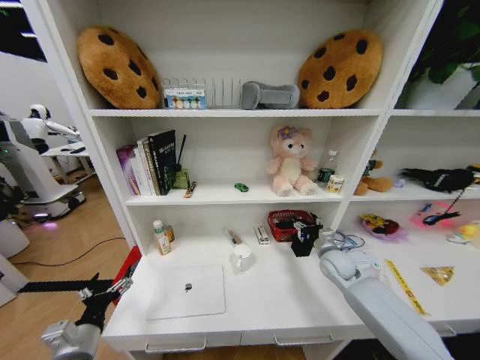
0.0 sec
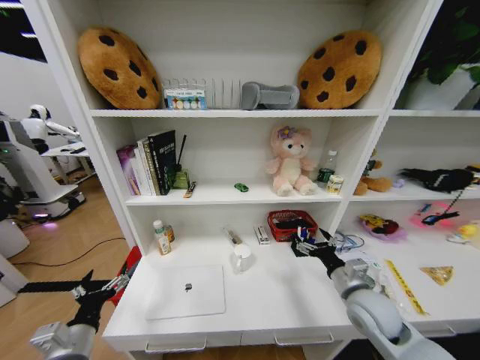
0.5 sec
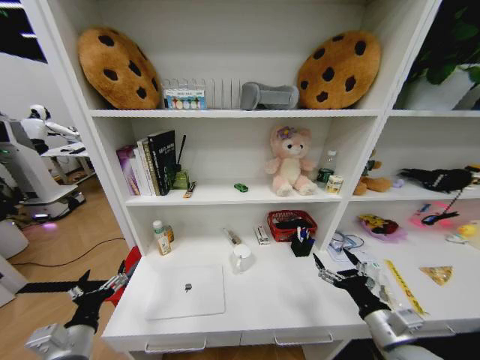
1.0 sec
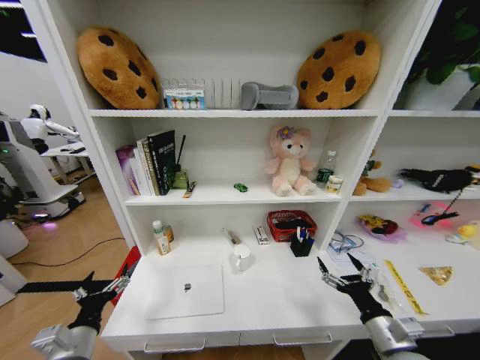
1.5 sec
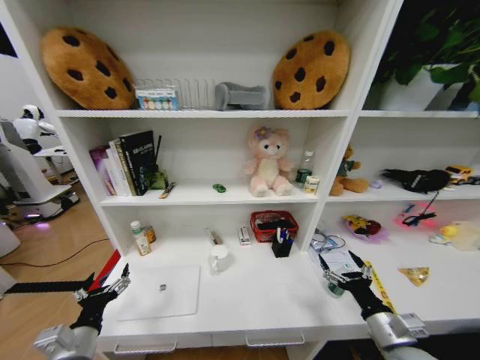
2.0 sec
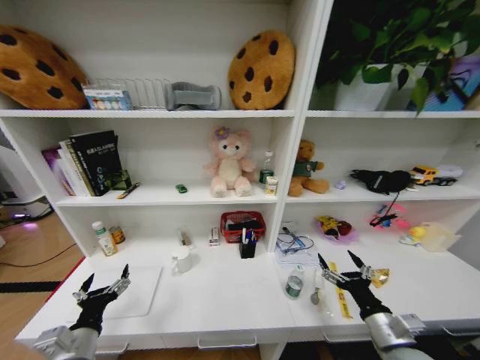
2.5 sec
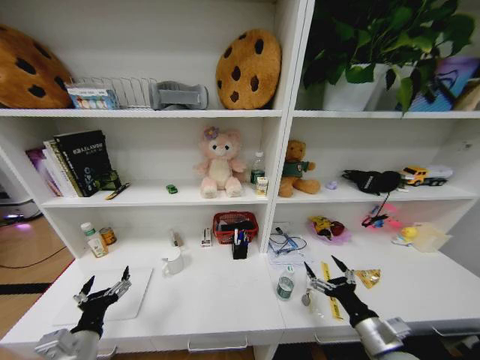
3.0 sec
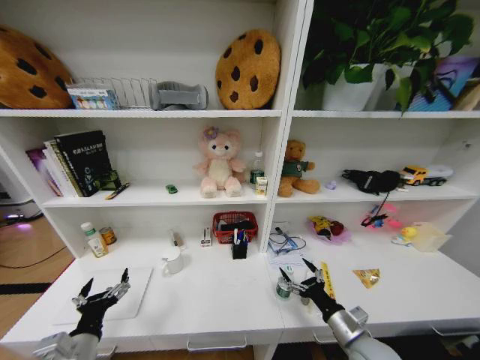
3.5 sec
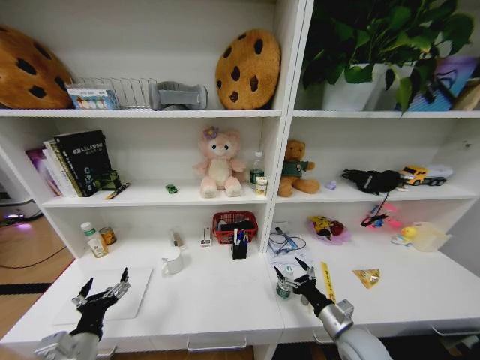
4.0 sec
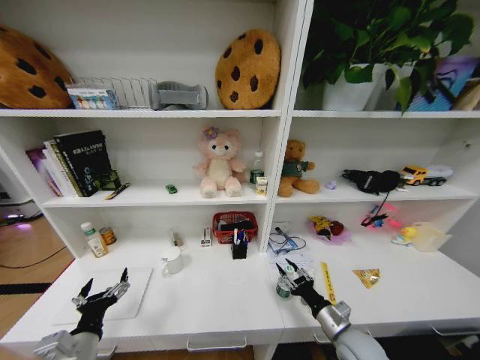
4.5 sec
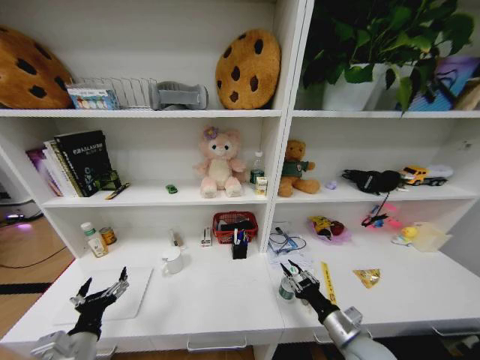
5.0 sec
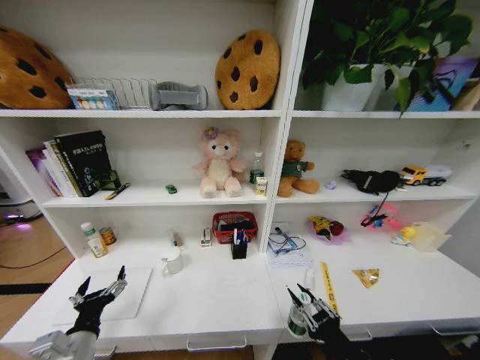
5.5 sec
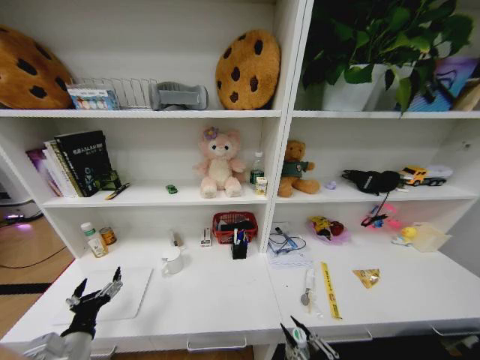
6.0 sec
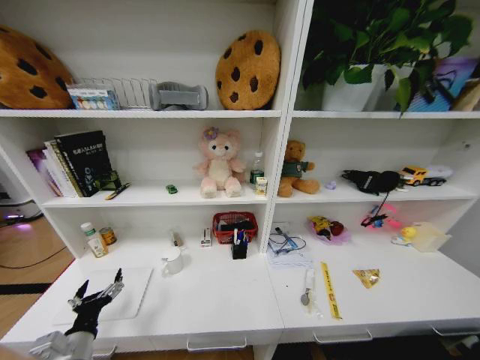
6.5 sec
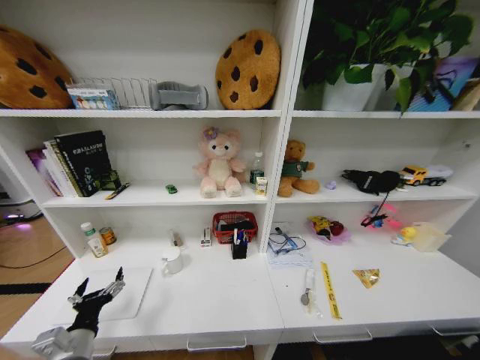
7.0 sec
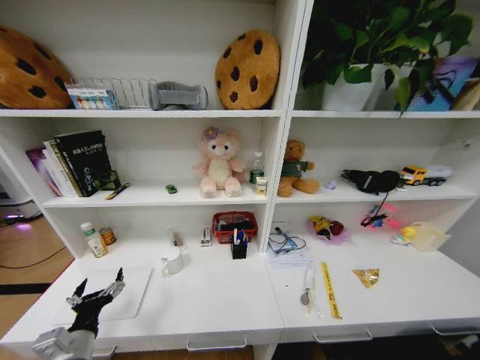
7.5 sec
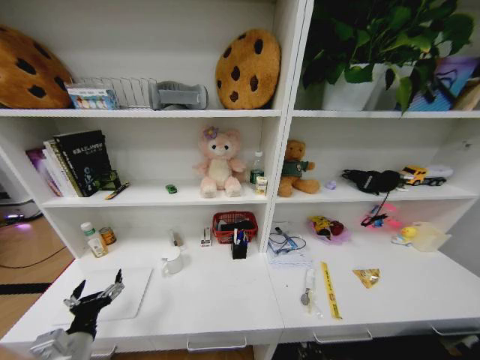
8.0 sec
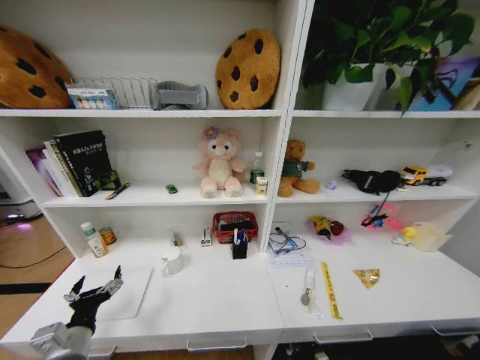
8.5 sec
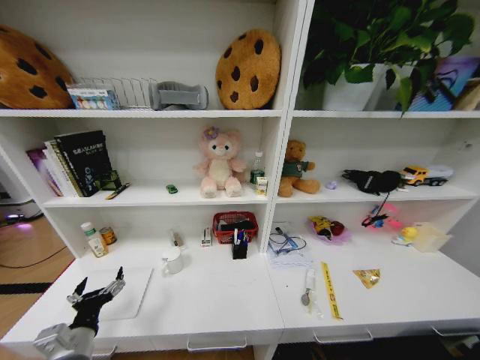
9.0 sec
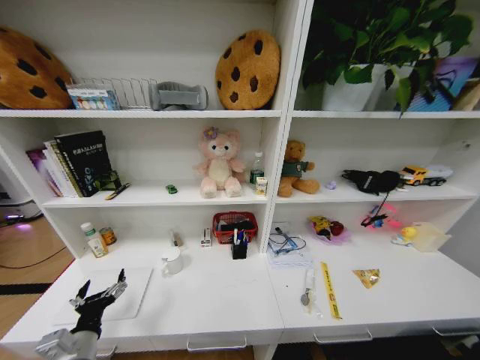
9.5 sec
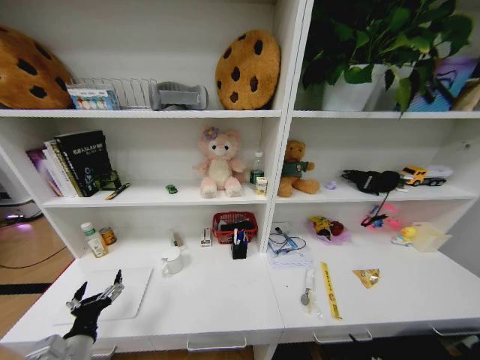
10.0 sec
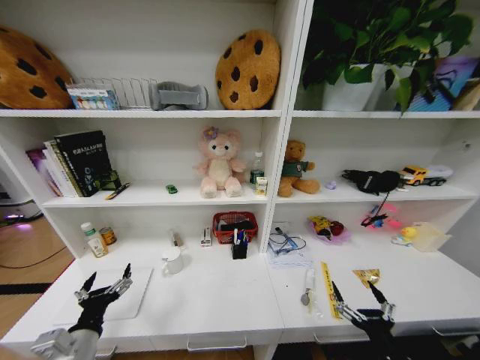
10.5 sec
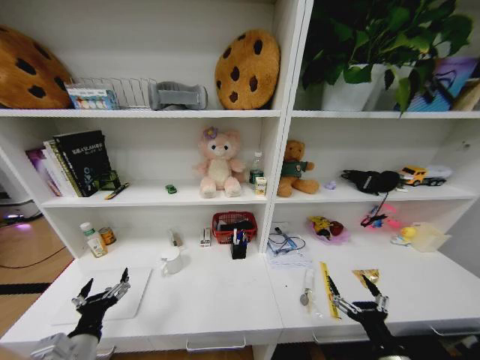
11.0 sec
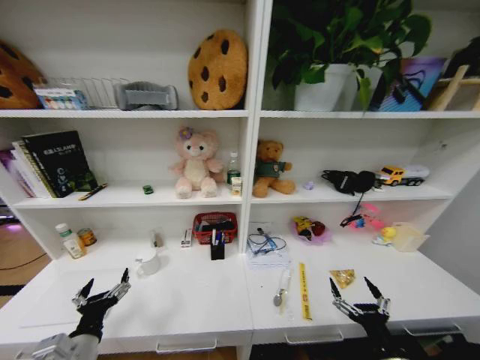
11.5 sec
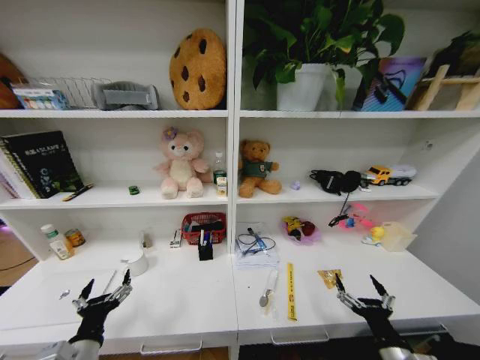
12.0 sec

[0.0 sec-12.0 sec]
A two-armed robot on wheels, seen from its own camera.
Task of the whole recording: Organize the objects on the table.
0.0 sec to 2.0 sec: The right gripper heads backward, covering approximately 25 cm.
2.0 sec to 4.0 sec: The right gripper moves downward and to the left, some 10 cm.
4.0 sec to 6.0 sec: The right gripper moves backward and upward, about 20 cm, and closes its fingers.
6.0 sec to 8.0 sec: The right gripper goes approximately 40 cm downward.
10.0 sec to 12.0 sec: The right gripper shifts about 15 cm forward.

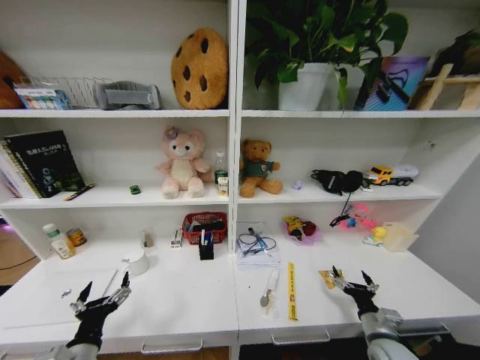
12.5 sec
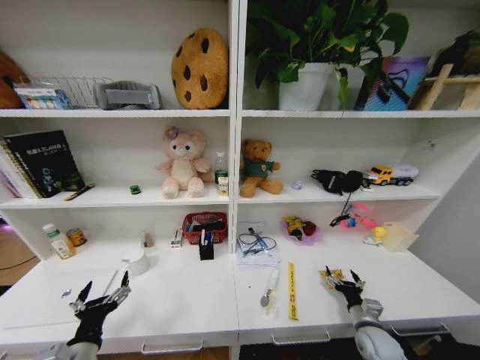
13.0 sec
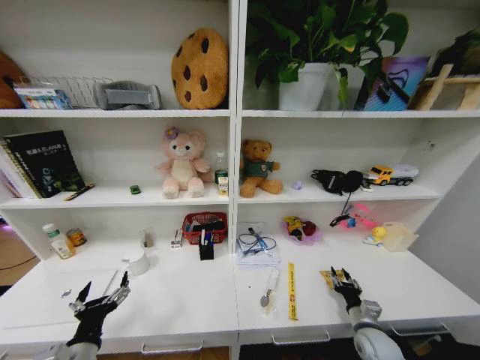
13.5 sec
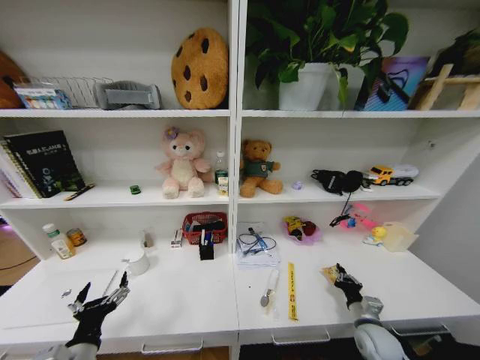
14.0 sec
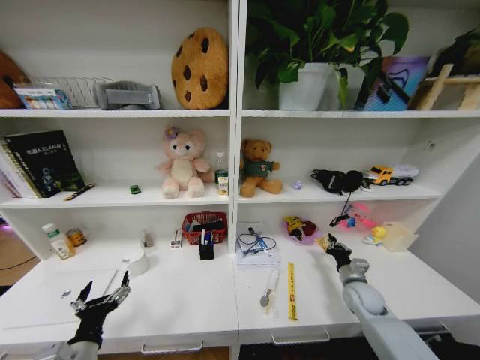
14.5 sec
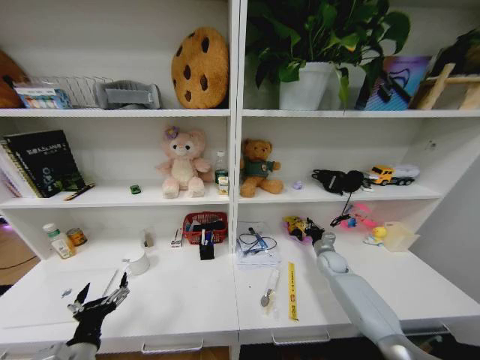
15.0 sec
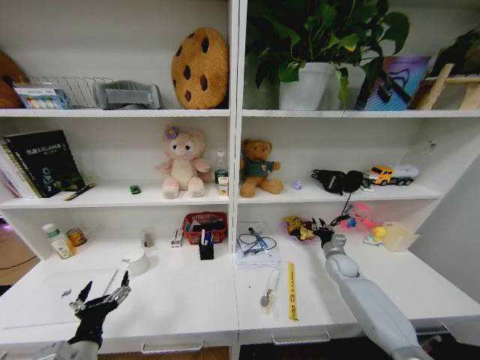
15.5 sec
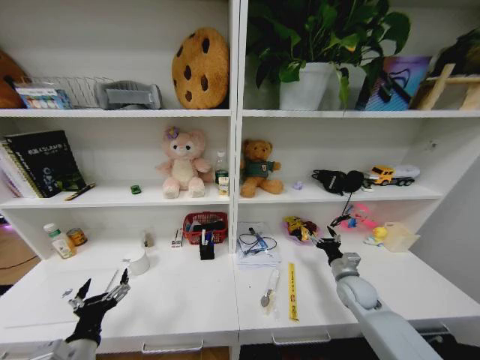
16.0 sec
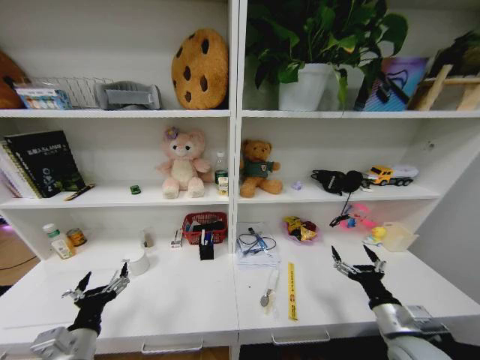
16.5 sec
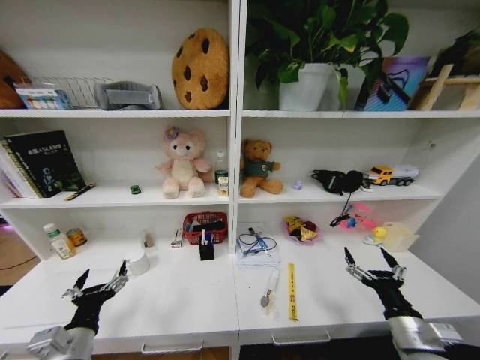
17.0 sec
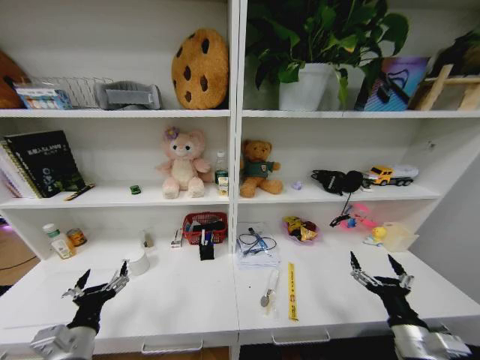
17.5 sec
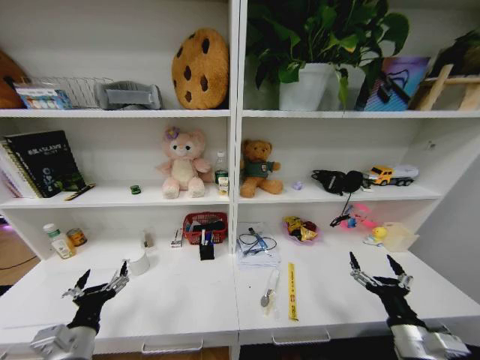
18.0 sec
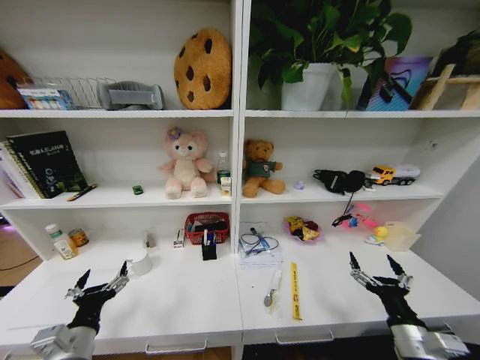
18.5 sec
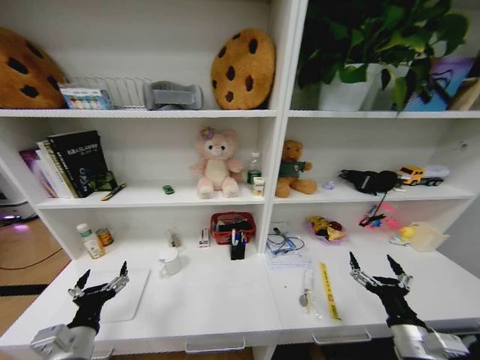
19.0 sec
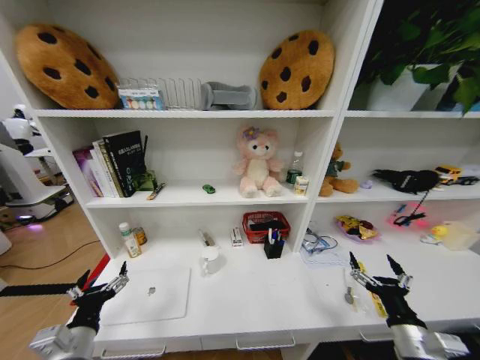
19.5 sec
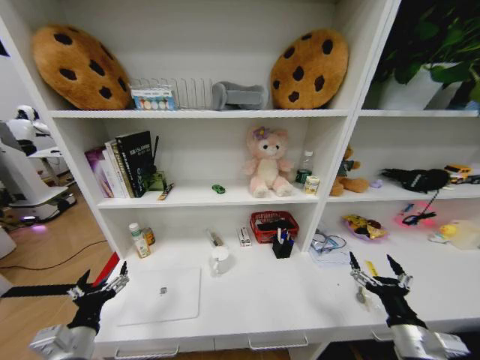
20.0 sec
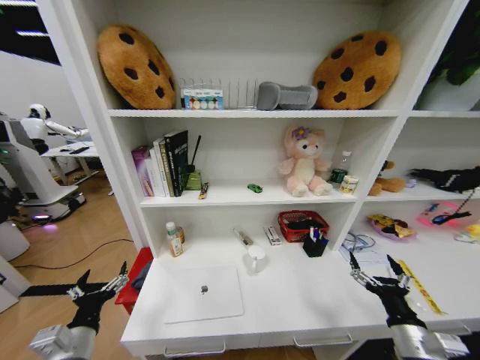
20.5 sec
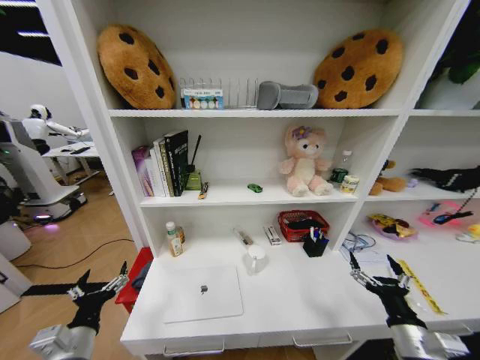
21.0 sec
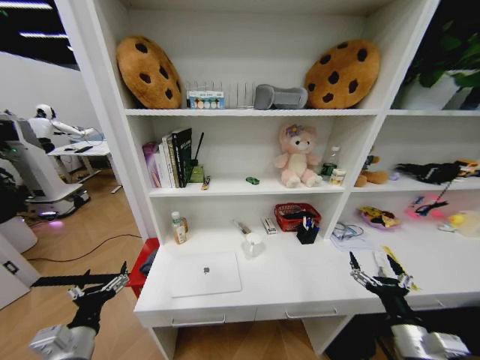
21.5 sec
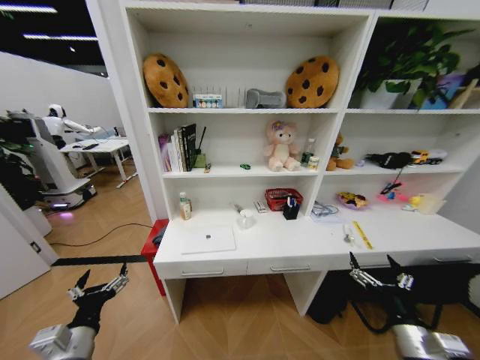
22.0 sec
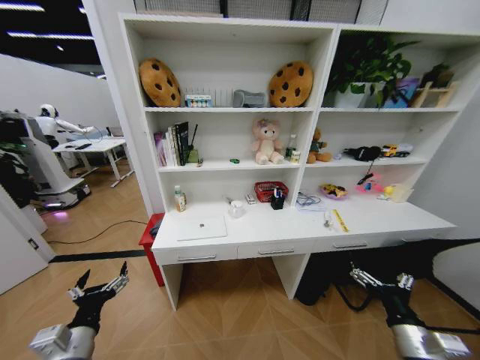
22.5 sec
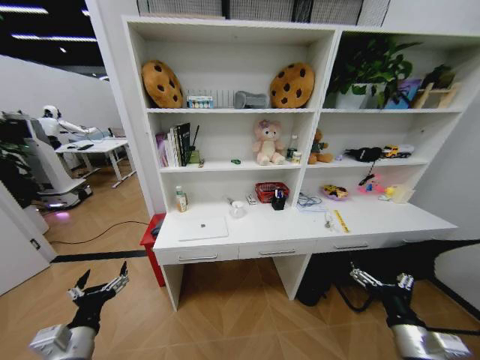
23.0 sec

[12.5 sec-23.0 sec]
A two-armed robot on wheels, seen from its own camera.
Task of the whole recording: Organize the objects on the table.
12.5 sec to 14.5 sec: The right gripper heads forward, covering about 15 cm, and closes up.
14.5 sec to 16.5 sec: The right gripper is displaced backward and upward by about 15 cm, and opens.
16.5 sec to 19.0 sec: The right gripper goes roughly 5 cm backward.

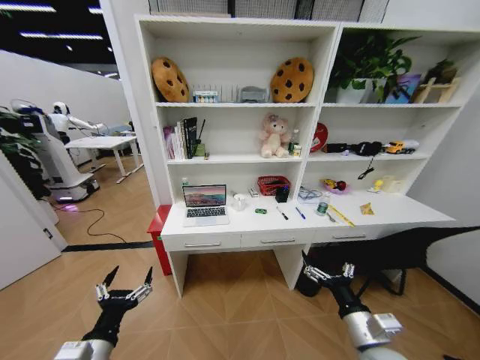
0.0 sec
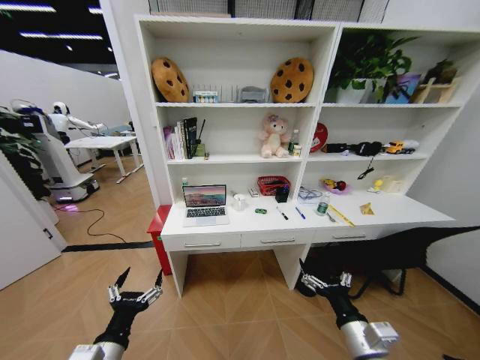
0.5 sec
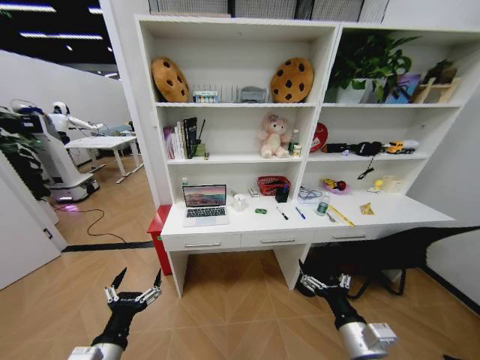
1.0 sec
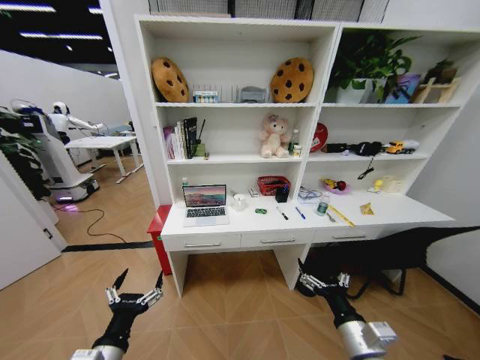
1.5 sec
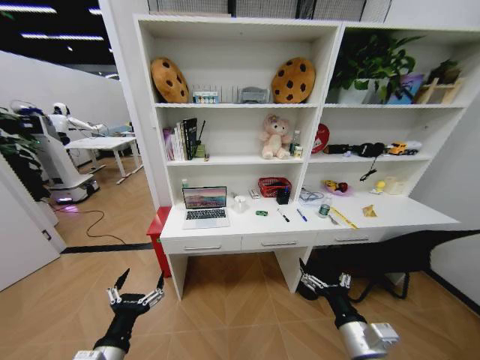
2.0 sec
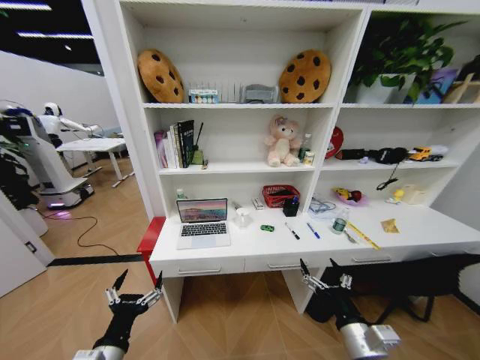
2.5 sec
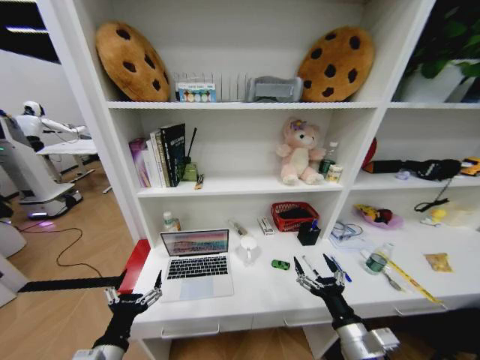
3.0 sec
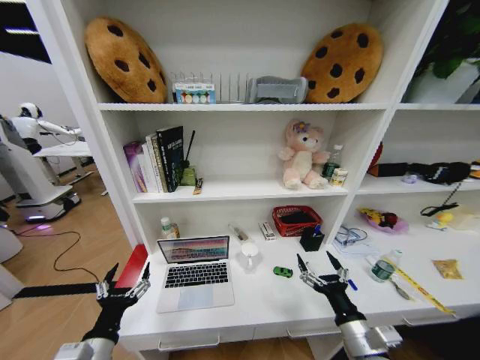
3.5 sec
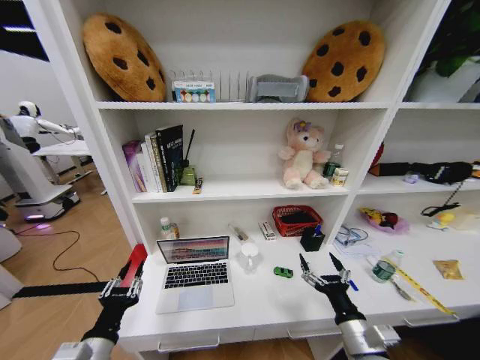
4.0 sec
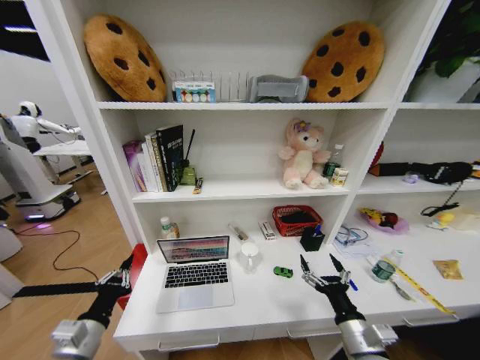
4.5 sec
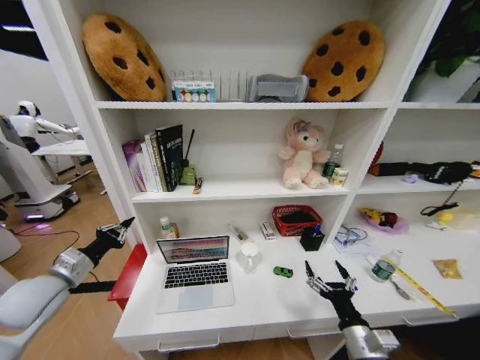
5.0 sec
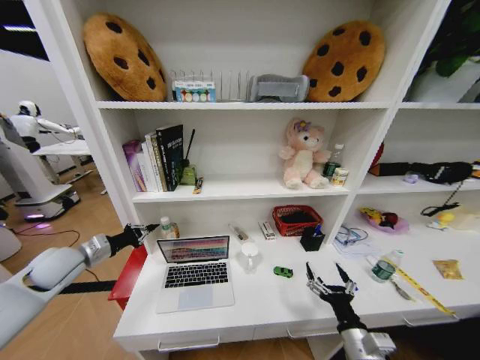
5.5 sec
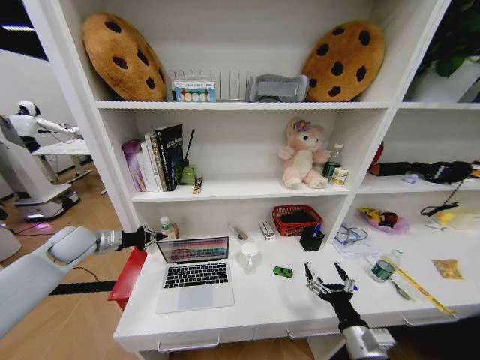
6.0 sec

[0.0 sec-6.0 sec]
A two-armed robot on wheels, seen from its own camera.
Task of the whole recording: Organize the objects on the table.
2.0 sec to 4.0 sec: The left gripper closes its fingers.
4.0 sec to 6.0 sec: The left gripper goes approximately 35 cm forward and to the left.
